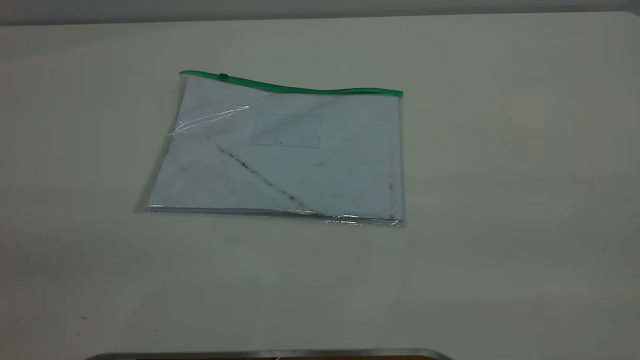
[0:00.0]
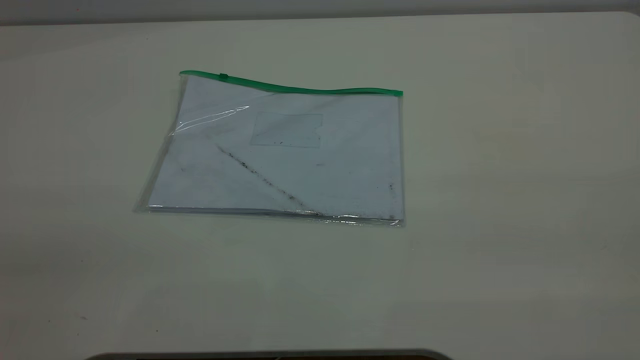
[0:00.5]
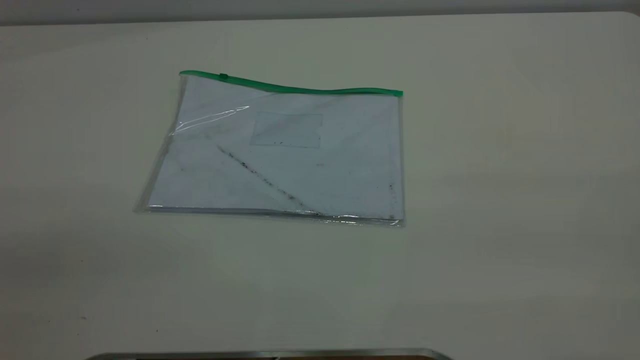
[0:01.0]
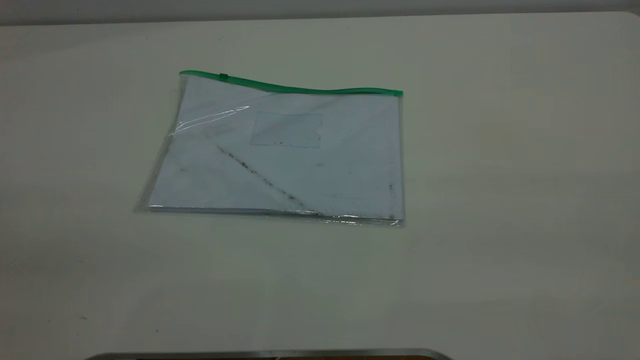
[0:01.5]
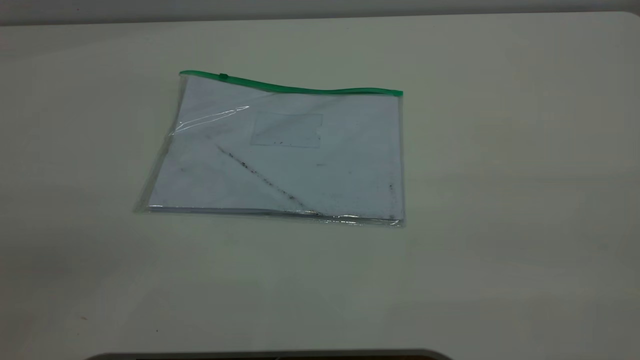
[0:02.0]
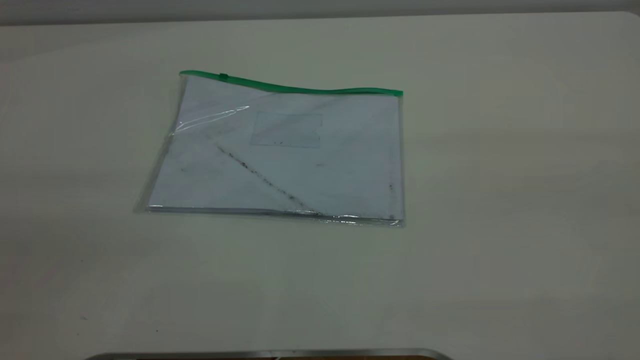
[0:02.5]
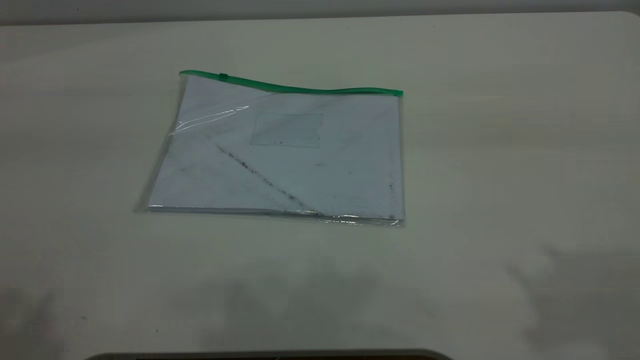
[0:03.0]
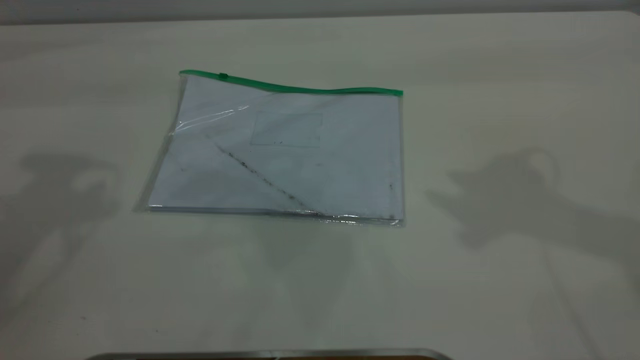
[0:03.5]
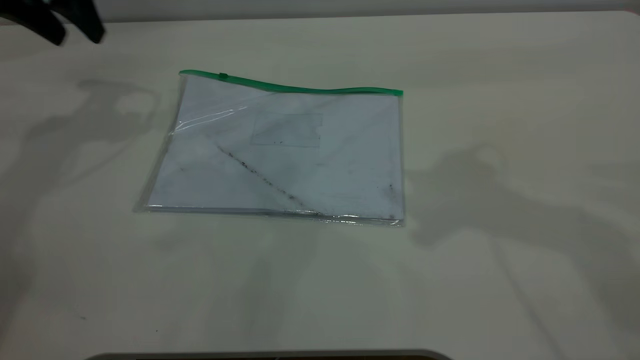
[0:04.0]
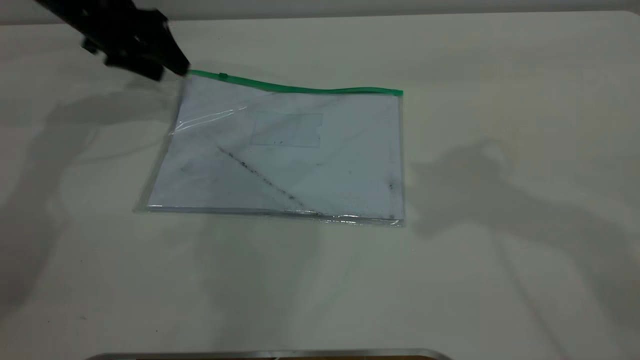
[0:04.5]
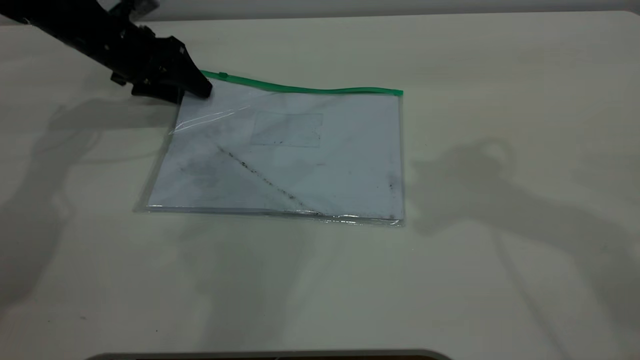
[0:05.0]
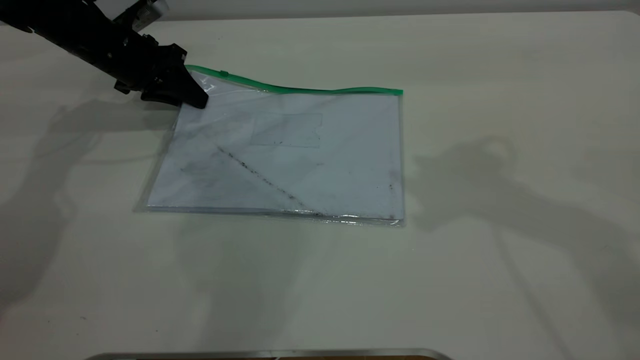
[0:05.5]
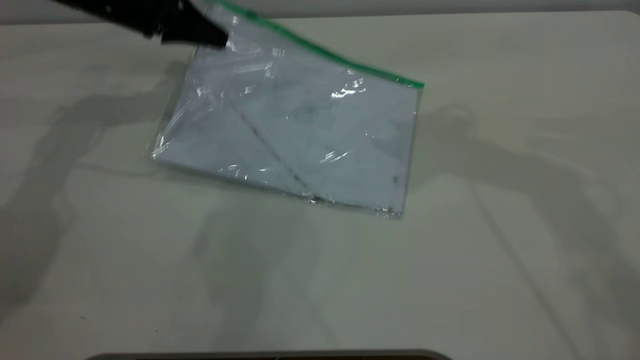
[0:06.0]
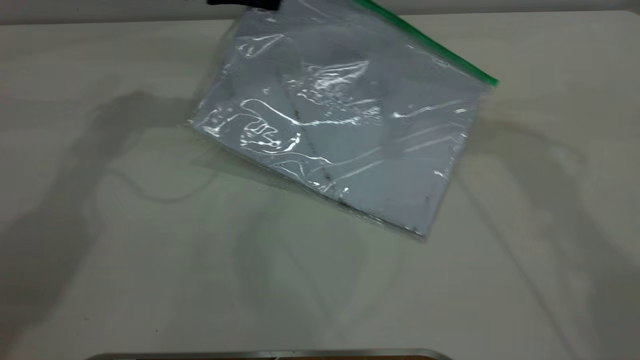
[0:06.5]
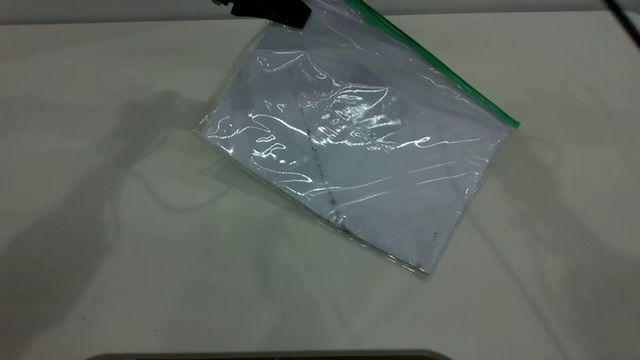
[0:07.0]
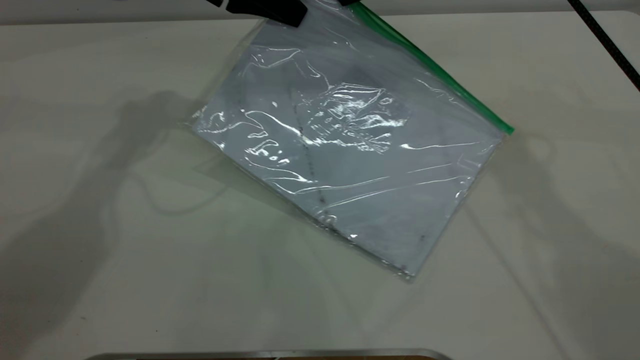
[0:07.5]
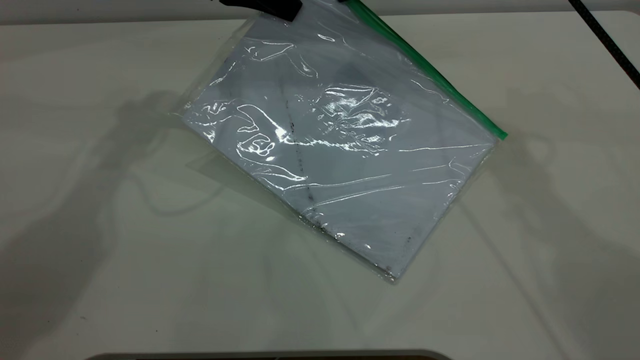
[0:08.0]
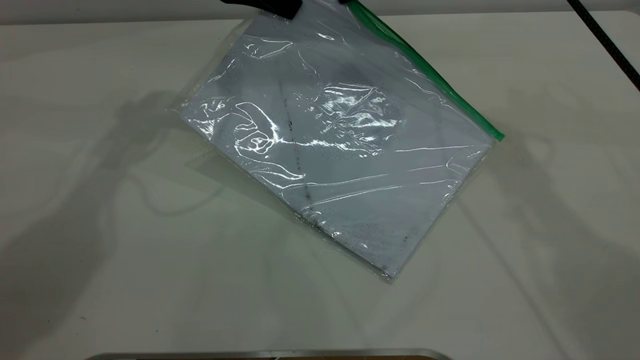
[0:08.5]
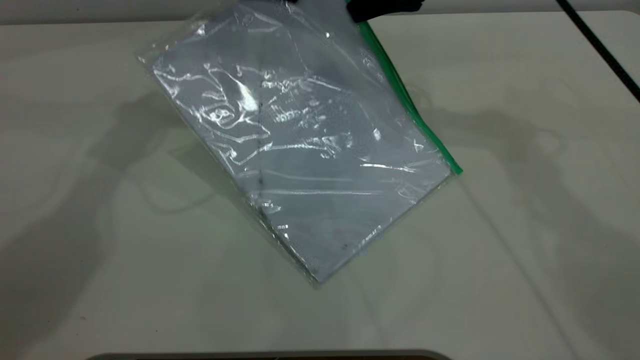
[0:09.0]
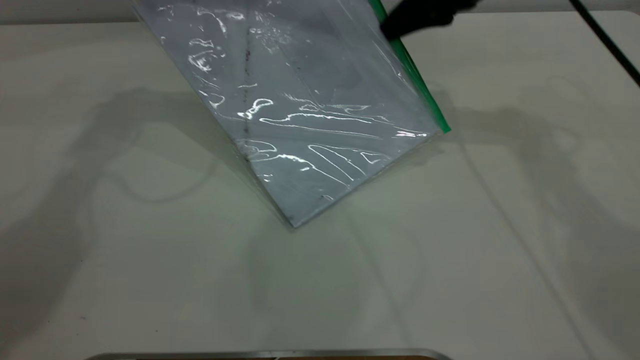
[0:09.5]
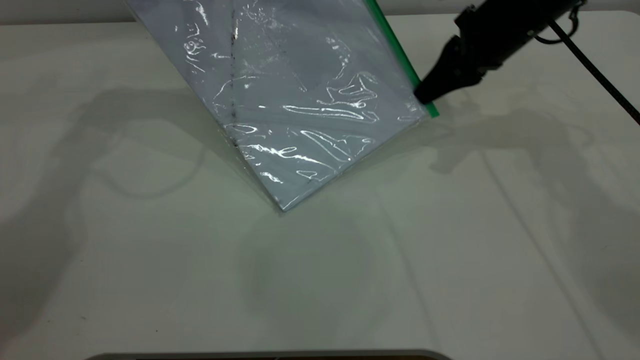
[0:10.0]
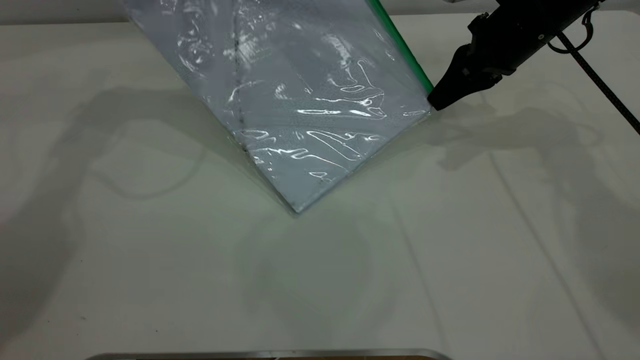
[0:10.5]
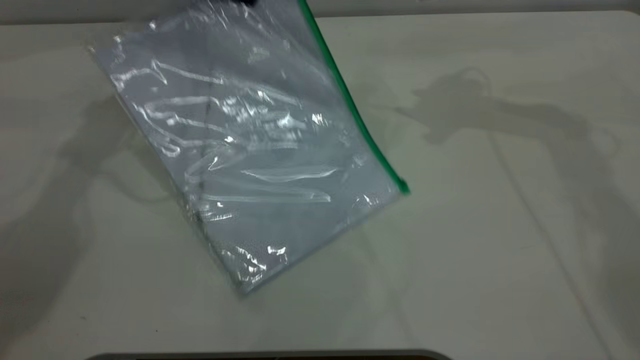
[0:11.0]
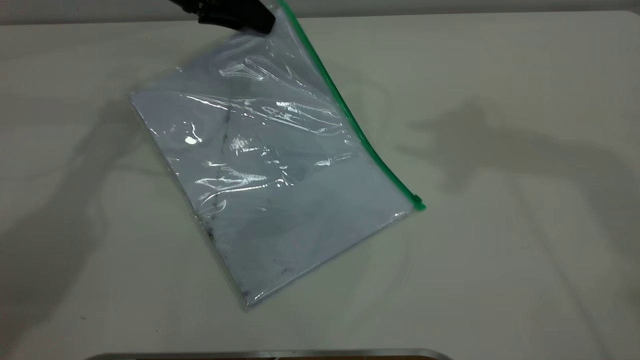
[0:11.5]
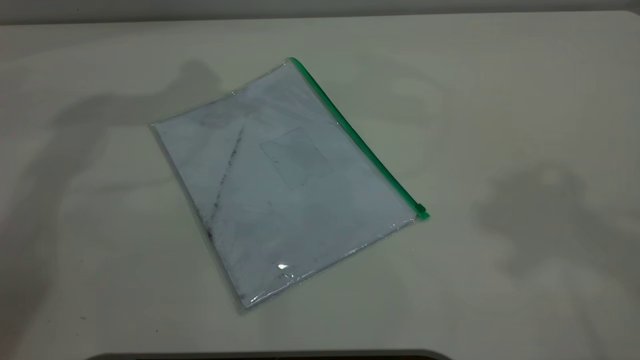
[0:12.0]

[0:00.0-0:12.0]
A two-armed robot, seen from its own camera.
Step, 0:00.0 to 0:05.5: Pick up the transparent plastic bag with the left gripper.
Step, 0:06.0 to 0:10.5: Pulling up the zipper on the transparent plastic bag with the right gripper to close it.
Step, 0:11.0 to 0:11.5: Place the transparent plastic bag.
0:00.0 to 0:02.0: Neither gripper changes place.
0:02.0 to 0:04.0: The left gripper travels forward by roughly 50 cm.
0:04.0 to 0:06.0: The left gripper shifts approximately 10 cm downward and to the right, and closes its fingers. Meanwhile the right gripper travels forward by roughly 10 cm.
0:06.0 to 0:08.0: The left gripper travels to the right and upward by roughly 10 cm, while the right gripper shifts approximately 10 cm downward and forward, and closes up.
0:08.0 to 0:10.0: The left gripper ends up approximately 5 cm from where it was, while the right gripper travels downward and to the right by about 15 cm.
0:10.0 to 0:12.0: The right gripper heads upward and backward, covering roughly 40 cm, and opens. Meanwhile the left gripper heads upward, covering roughly 10 cm, and opens.
